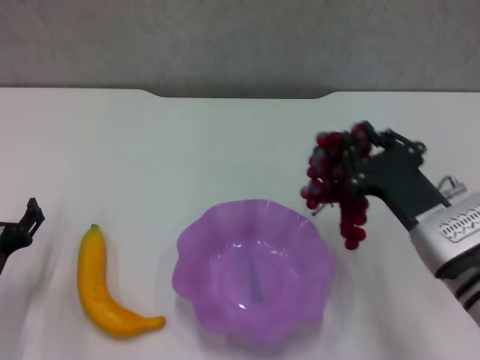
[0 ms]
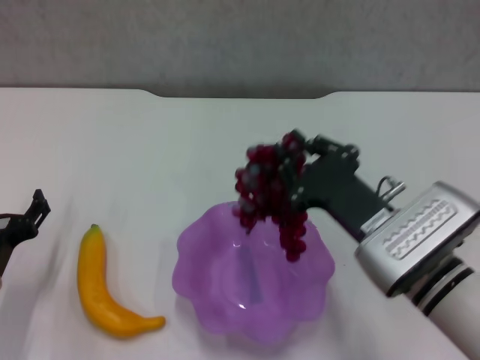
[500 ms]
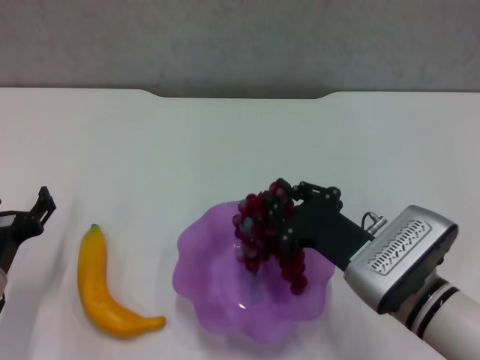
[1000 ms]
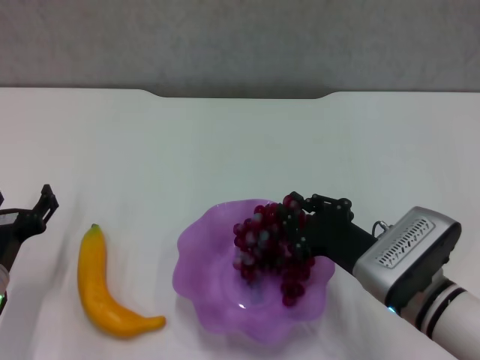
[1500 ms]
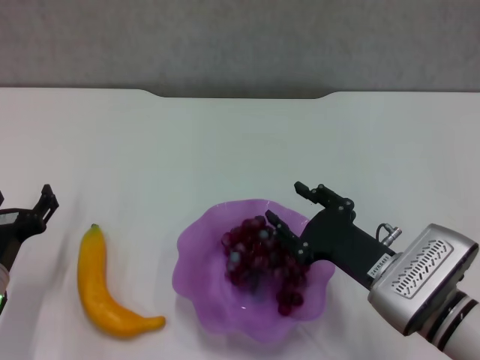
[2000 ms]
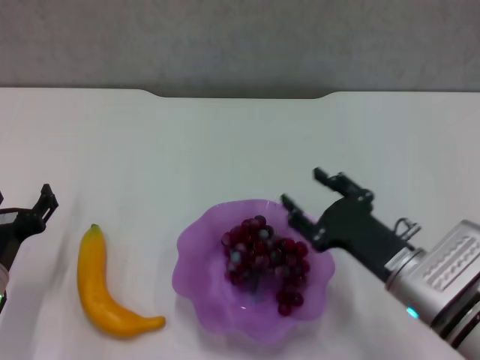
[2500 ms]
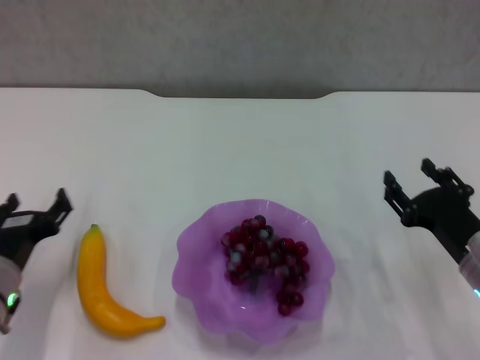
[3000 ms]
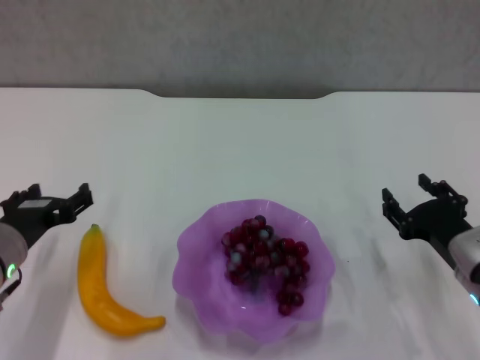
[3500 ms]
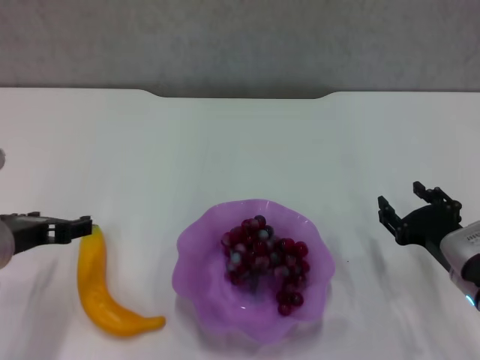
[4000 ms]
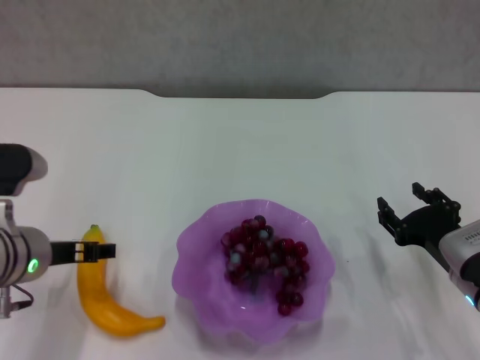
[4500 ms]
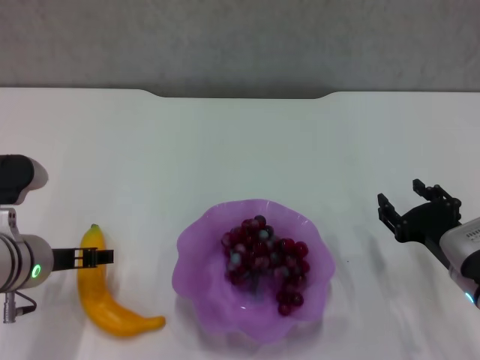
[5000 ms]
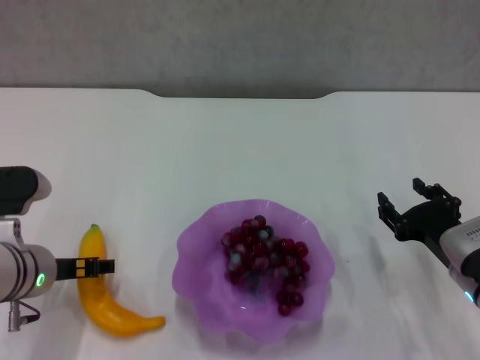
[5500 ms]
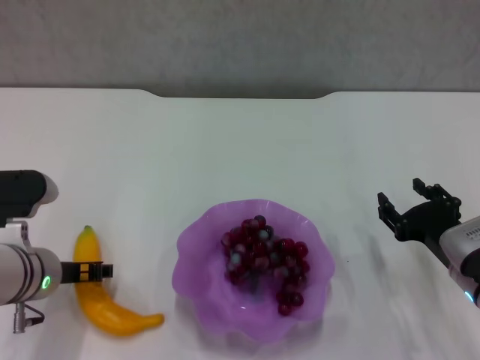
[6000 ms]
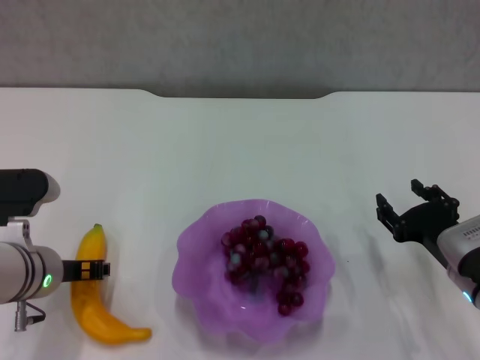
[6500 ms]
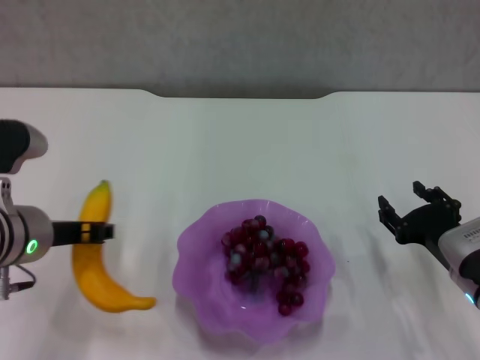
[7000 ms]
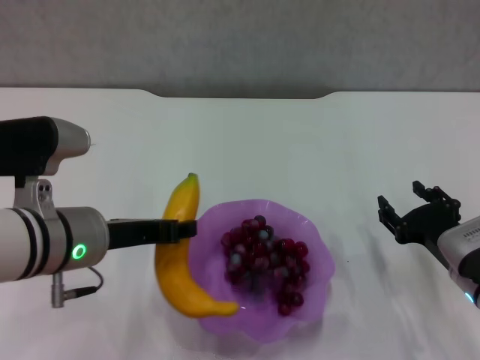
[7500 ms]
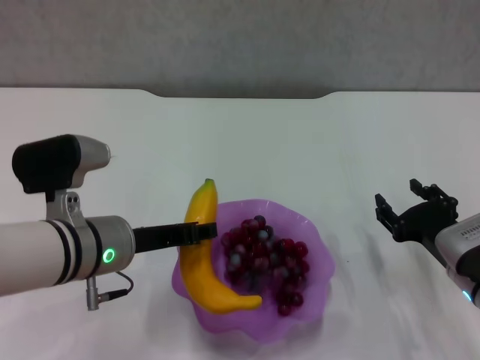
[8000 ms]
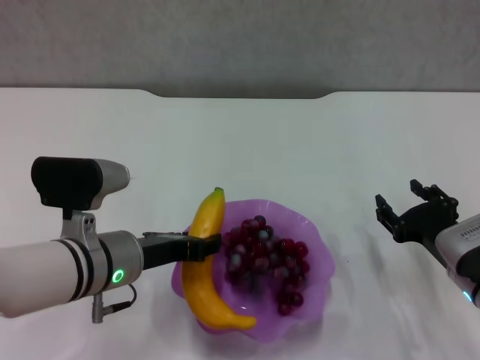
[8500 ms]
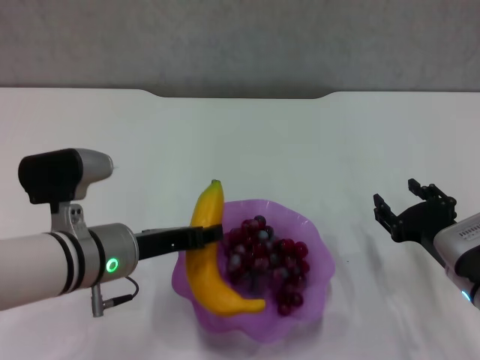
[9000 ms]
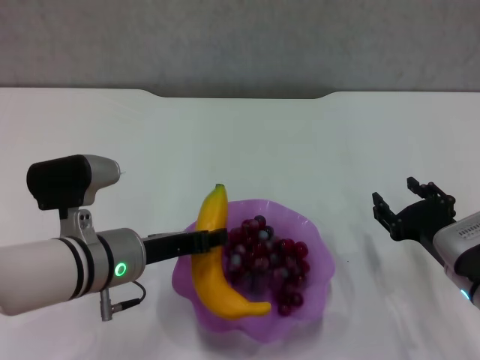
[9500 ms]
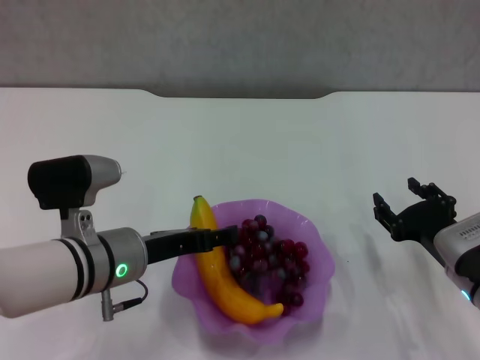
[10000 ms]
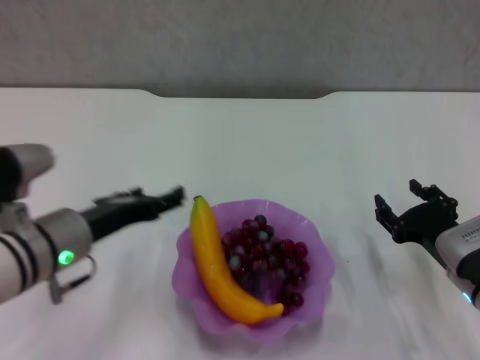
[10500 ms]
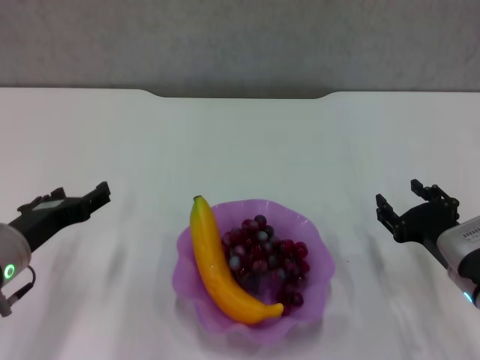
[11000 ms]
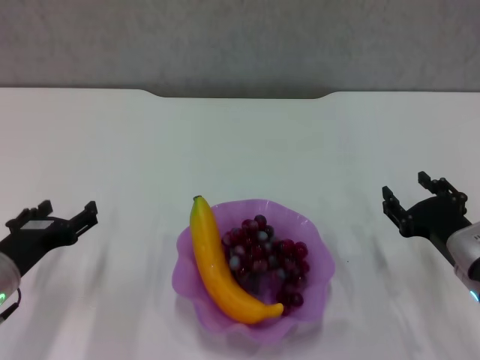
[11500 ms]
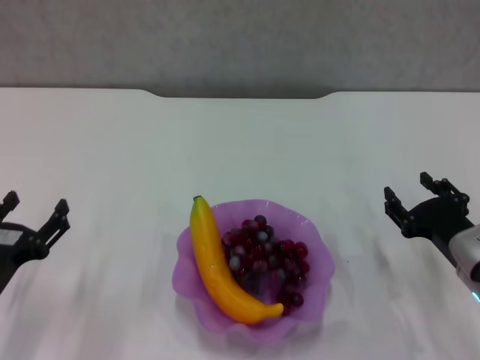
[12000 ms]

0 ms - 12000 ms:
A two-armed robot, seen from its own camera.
Step, 0 ms - 2000 ms: Place the grape in the purple plate with right gripper.
Step, 3000 ms - 6000 ms: Grasp the banana with left gripper.
Step, 6500 ms - 10000 ms: Place the banana in the purple plate with left gripper.
2000 ms - 4000 ms: The right gripper moves to the right, approximately 10 cm. Meanwhile the left gripper moves upward, about 10 cm.
4000 ms - 6000 ms: The left gripper is displaced downward by approximately 5 cm.
6000 ms - 8000 ms: The left gripper shifts about 5 cm to the right, and closes.
8000 ms - 10000 ms: The left gripper opens.
10000 ms - 12000 ms: The left gripper heads to the left, backward and downward, covering some 15 cm.

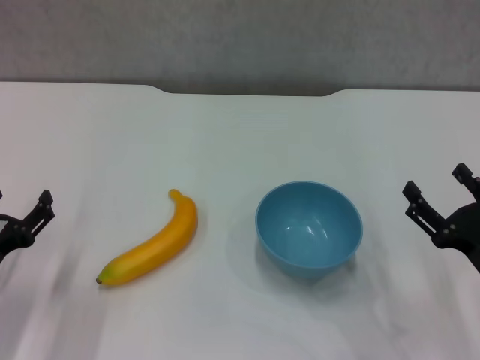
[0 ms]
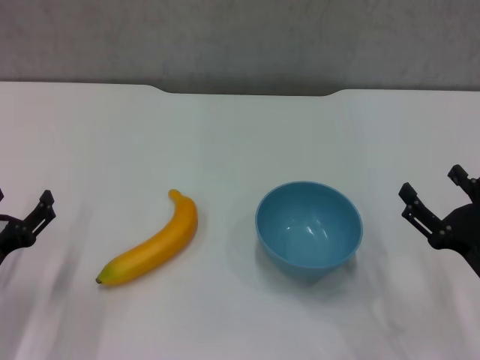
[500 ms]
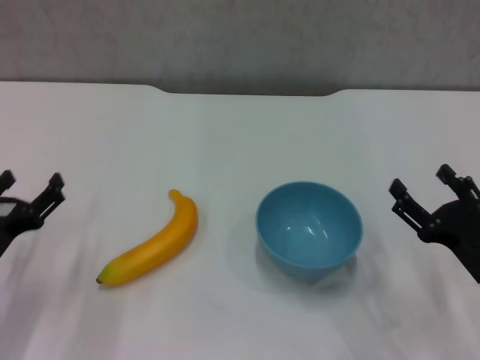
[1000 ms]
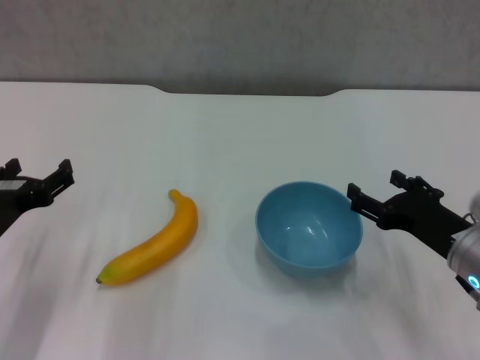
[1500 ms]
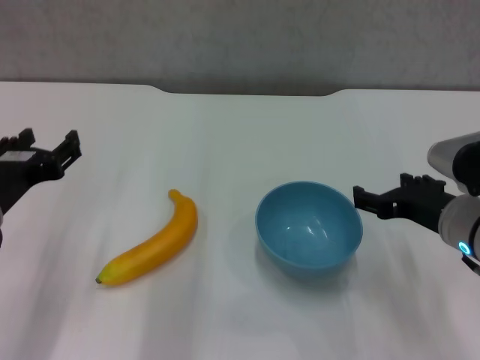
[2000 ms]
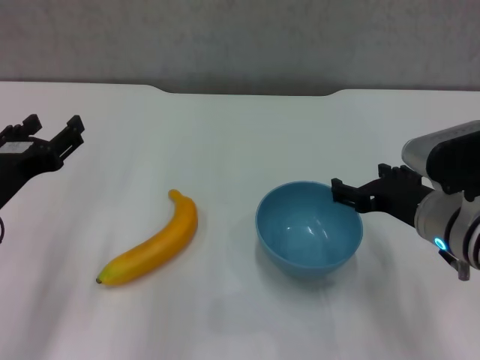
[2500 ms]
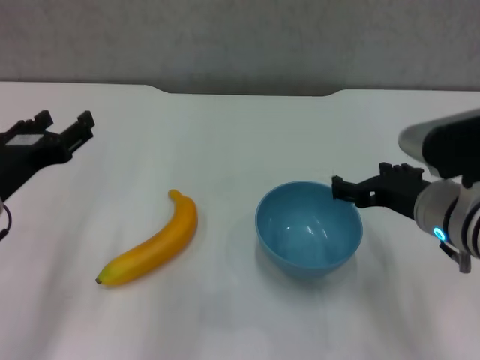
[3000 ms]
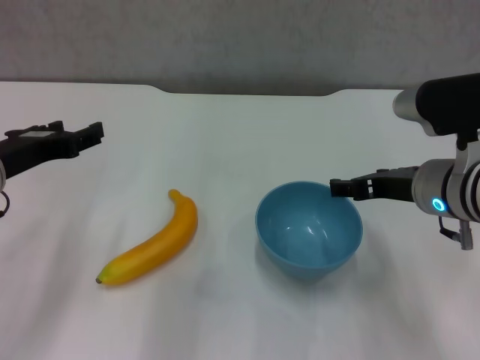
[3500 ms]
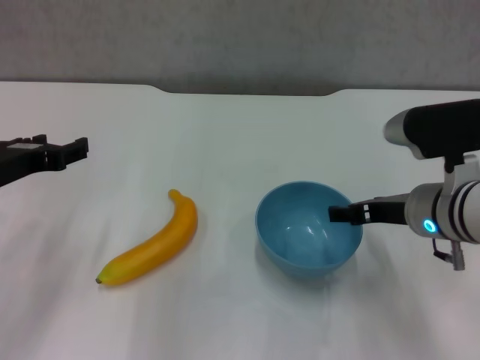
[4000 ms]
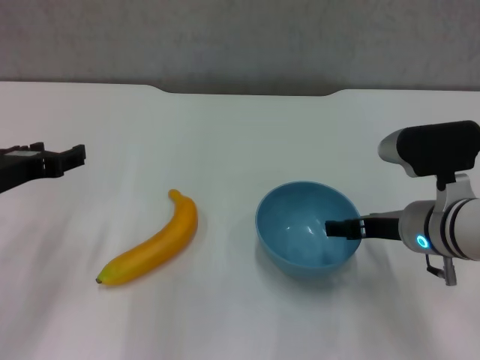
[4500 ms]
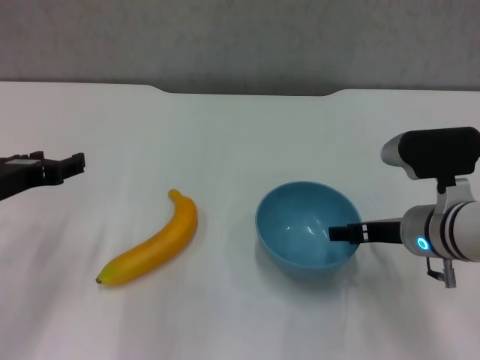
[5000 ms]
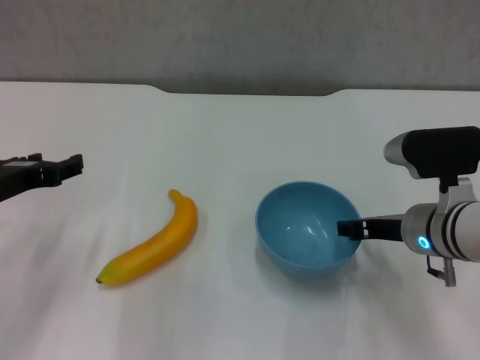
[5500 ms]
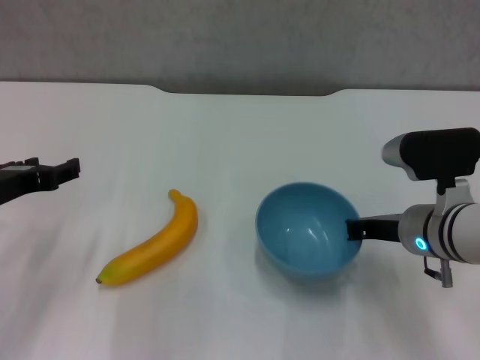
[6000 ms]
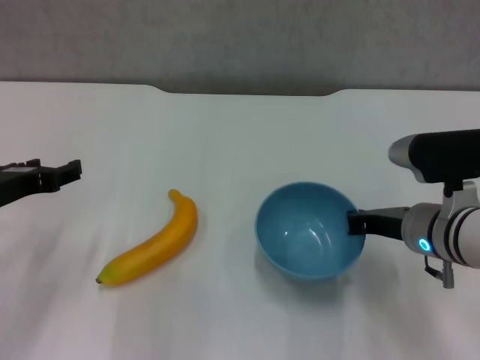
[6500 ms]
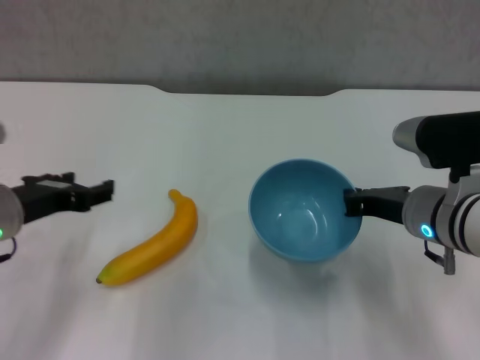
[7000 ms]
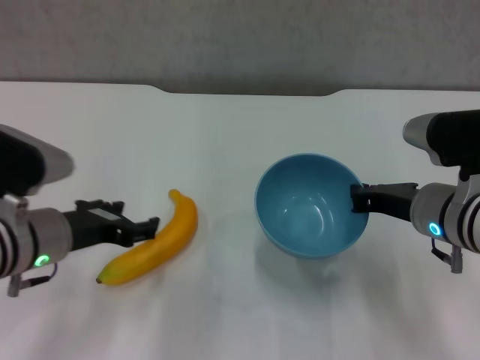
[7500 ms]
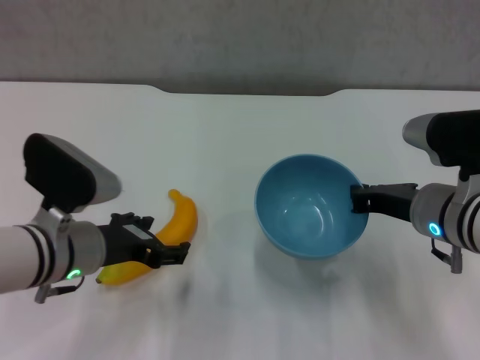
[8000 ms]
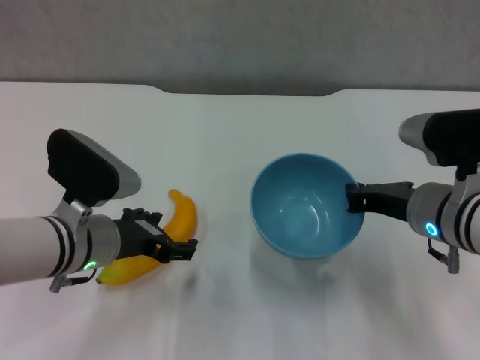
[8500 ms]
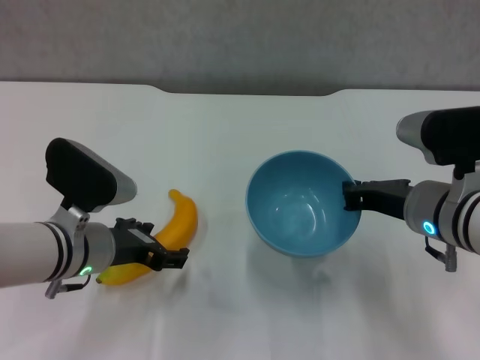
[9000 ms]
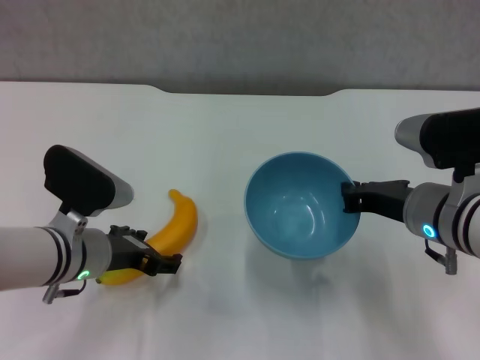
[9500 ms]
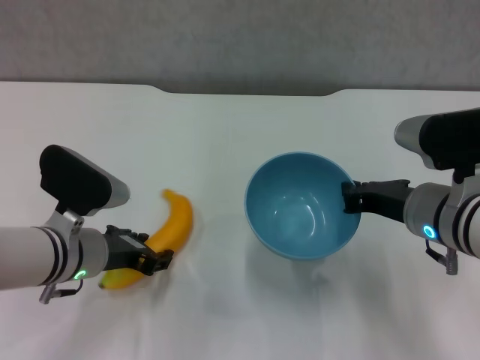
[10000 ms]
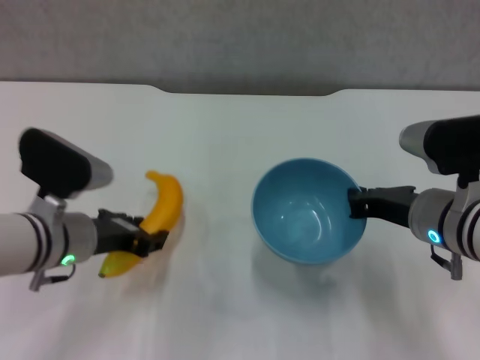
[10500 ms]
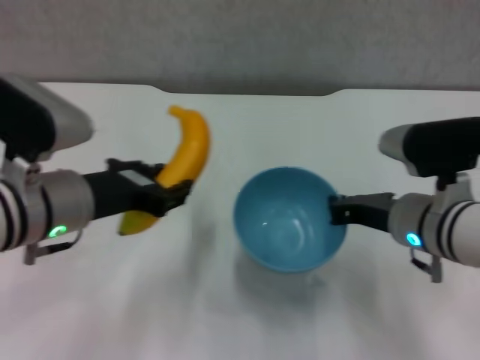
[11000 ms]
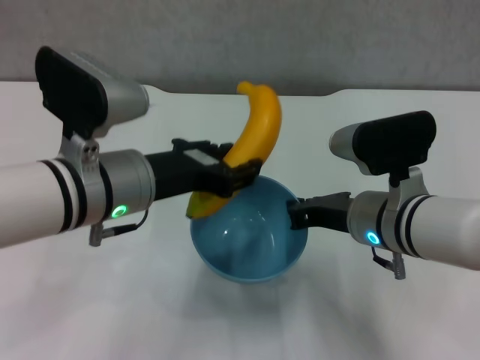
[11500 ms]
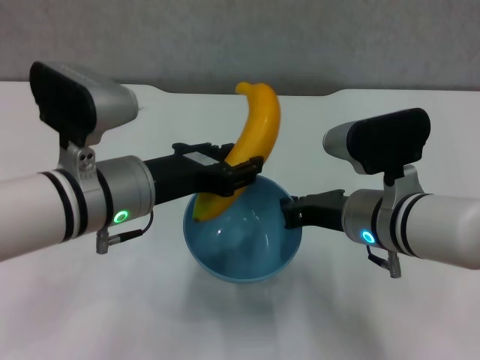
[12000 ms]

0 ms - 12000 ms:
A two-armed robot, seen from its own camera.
Step, 0 ms - 6000 ms: Grasp the blue bowl with right gripper.
Step, 6500 ms - 7500 ms: Lift the blue bowl with right gripper.
Step, 8000 ms - 10000 ms: Grasp the banana with left gripper.
0 ms - 2000 ms: The left gripper goes approximately 10 cm upward. The right gripper heads forward, upward and to the left, covering approximately 10 cm.
2000 ms - 4000 ms: The left gripper shifts by roughly 5 cm.
4000 ms - 6000 ms: The right gripper closes.
6000 ms - 8000 ms: The left gripper travels to the right by roughly 10 cm. Meanwhile the right gripper closes up.
8000 ms - 10000 ms: The grippers stay close to where they were, moving slightly.
10000 ms - 12000 ms: The right gripper travels to the left by about 5 cm. Meanwhile the left gripper shifts roughly 10 cm upward and to the right, and closes.

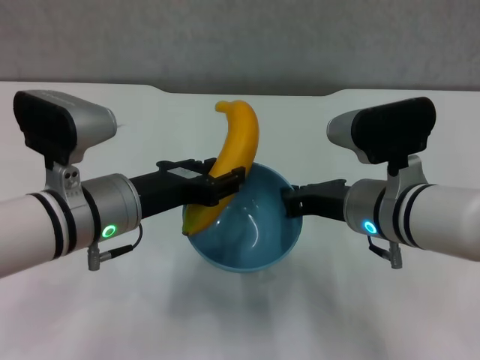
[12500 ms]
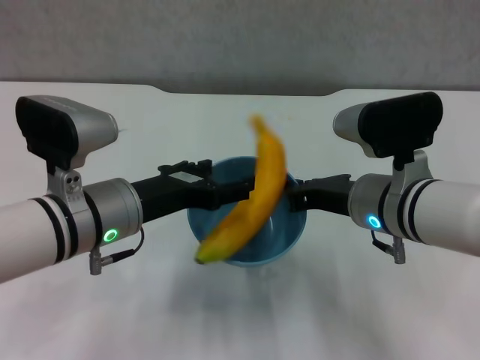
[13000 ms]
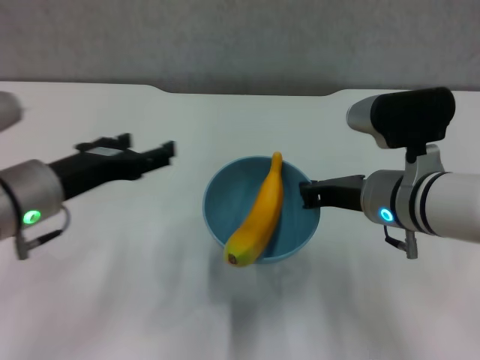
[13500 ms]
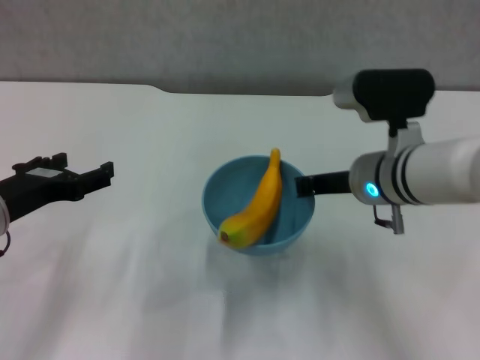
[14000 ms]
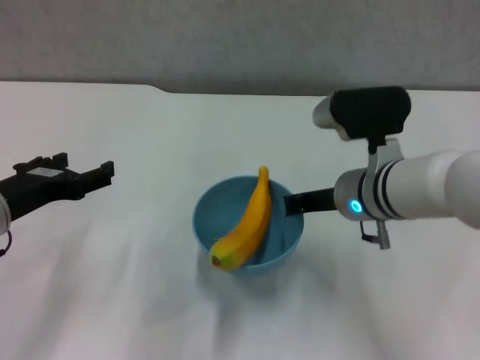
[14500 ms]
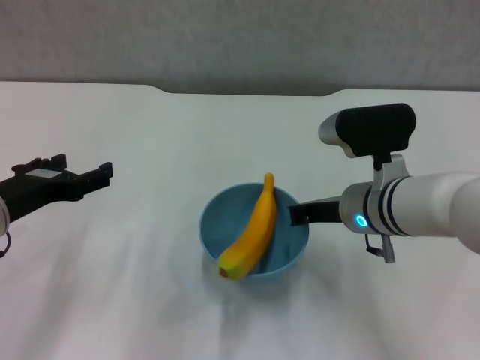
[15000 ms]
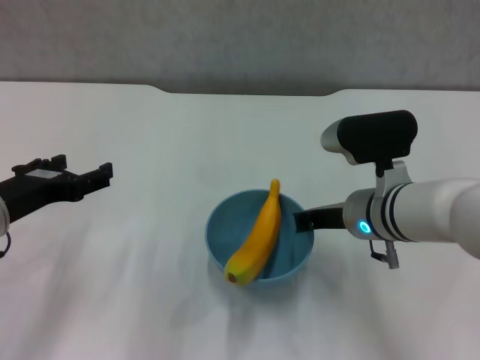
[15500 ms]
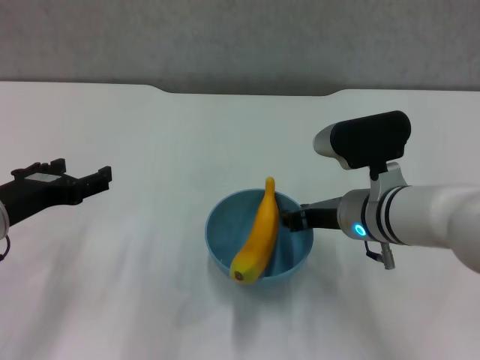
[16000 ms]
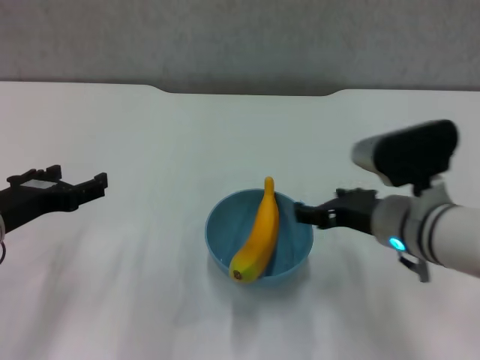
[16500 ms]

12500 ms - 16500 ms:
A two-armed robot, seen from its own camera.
Step, 13500 ms - 16500 ms: Place the bowl on the table with right gripper.
12500 ms - 14500 ms: The left gripper moves to the left, about 10 cm, and opens up.
14500 ms - 16500 ms: The right gripper shifts by about 5 cm, and opens.
